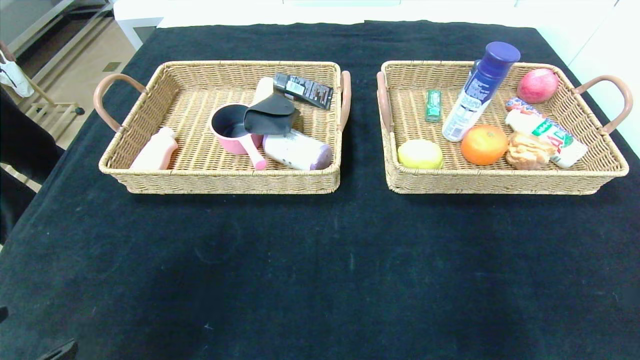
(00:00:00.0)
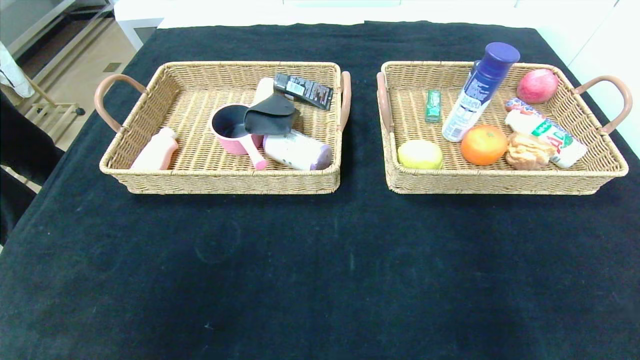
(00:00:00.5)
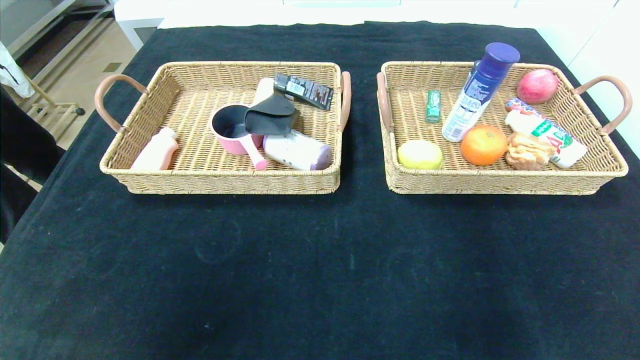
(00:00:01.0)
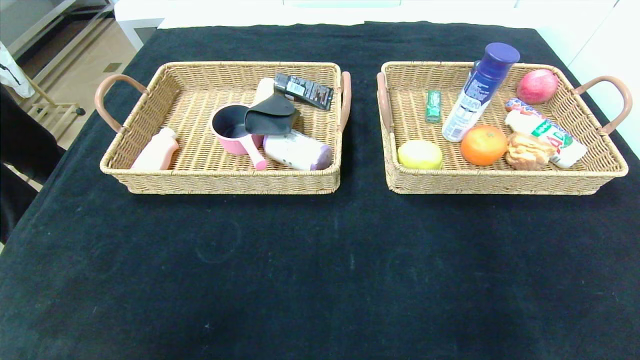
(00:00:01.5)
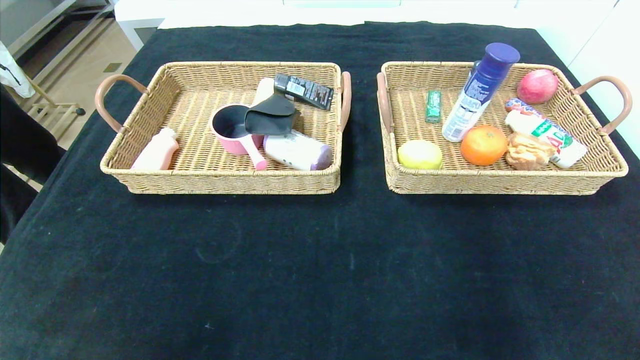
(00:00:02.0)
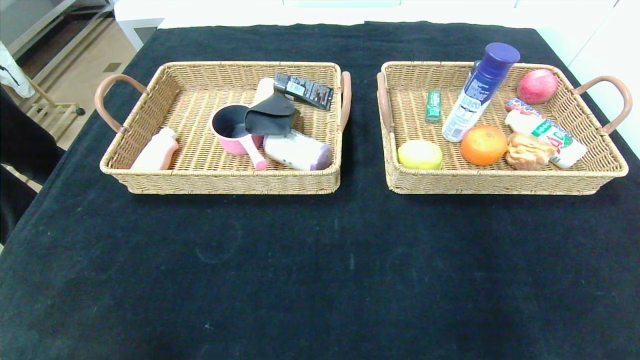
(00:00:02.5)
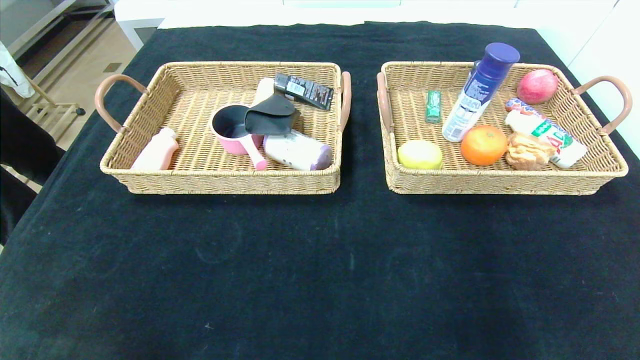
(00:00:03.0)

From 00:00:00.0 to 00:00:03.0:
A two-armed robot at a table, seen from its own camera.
From 00:00:00.0 to 00:00:01.5: The left gripper is displaced backward by roughly 10 cm. The right gripper shifts approximately 5 cm backward.
